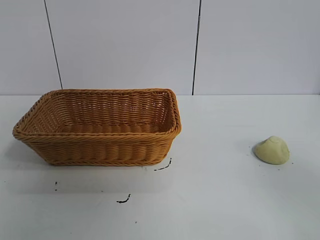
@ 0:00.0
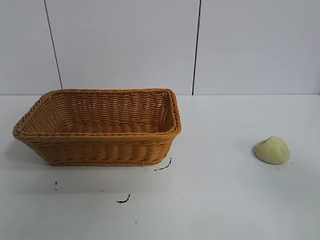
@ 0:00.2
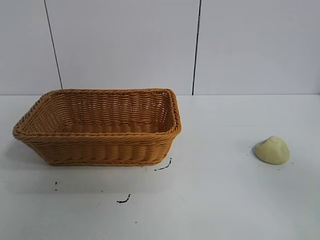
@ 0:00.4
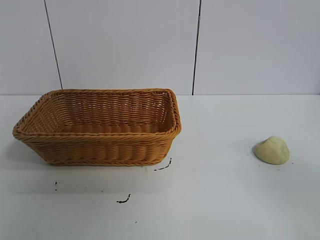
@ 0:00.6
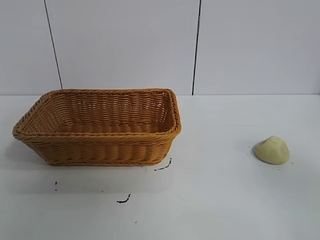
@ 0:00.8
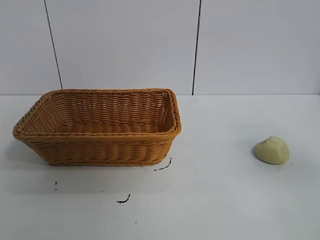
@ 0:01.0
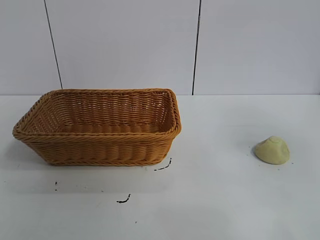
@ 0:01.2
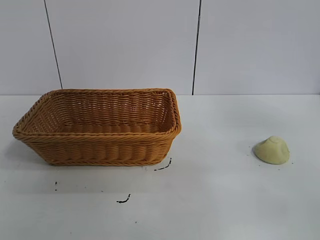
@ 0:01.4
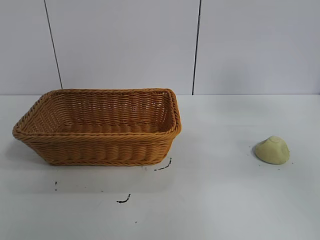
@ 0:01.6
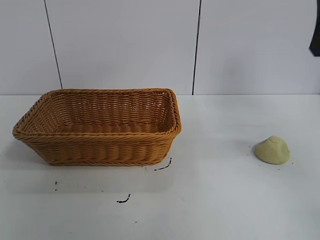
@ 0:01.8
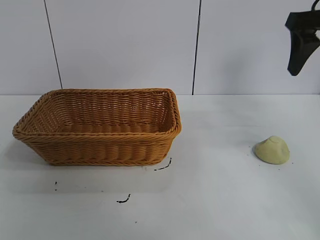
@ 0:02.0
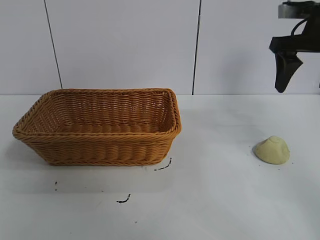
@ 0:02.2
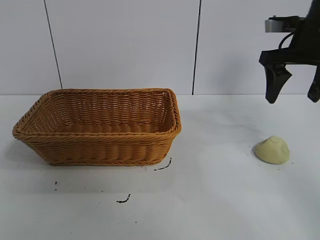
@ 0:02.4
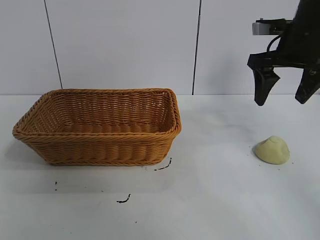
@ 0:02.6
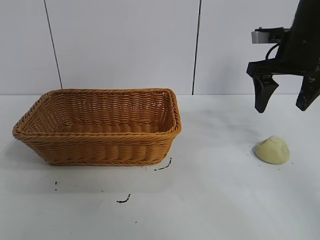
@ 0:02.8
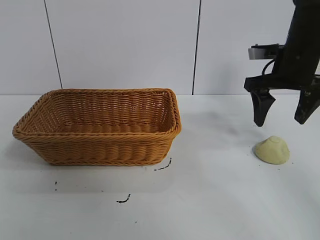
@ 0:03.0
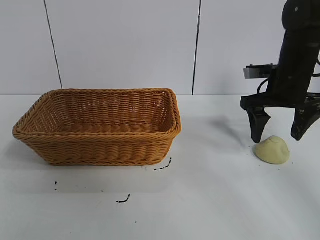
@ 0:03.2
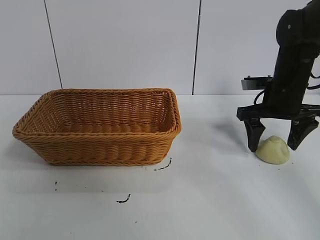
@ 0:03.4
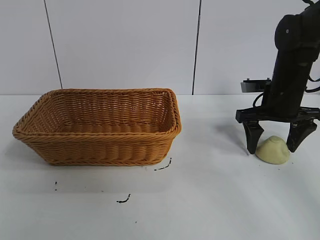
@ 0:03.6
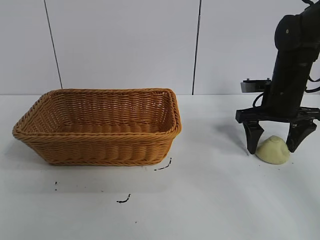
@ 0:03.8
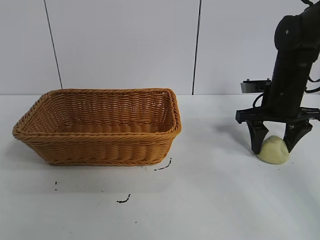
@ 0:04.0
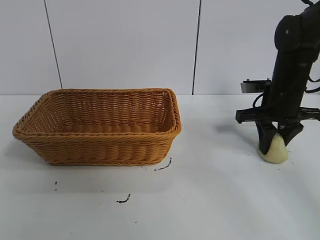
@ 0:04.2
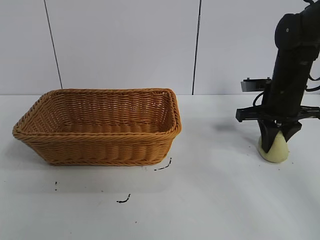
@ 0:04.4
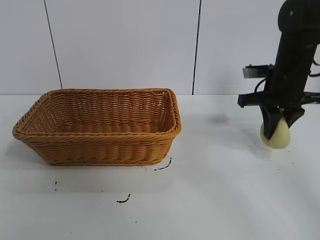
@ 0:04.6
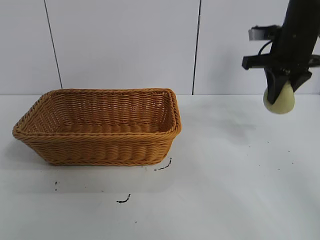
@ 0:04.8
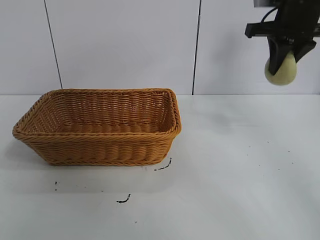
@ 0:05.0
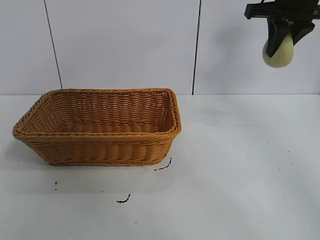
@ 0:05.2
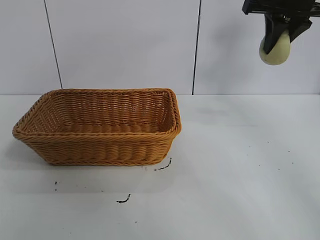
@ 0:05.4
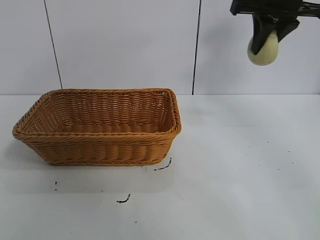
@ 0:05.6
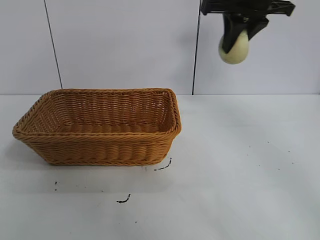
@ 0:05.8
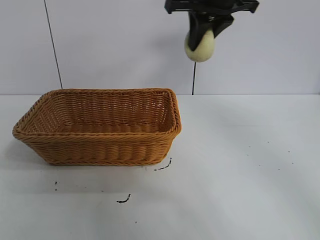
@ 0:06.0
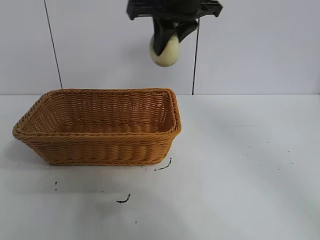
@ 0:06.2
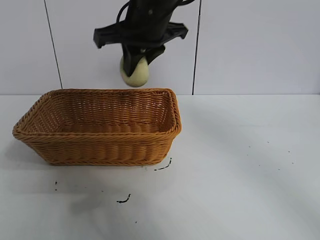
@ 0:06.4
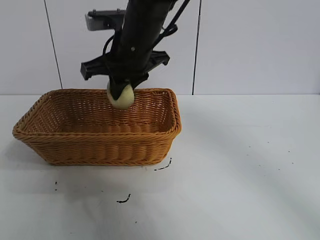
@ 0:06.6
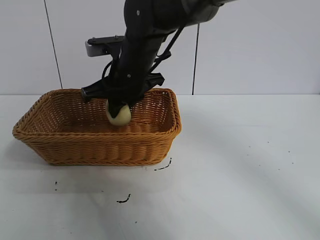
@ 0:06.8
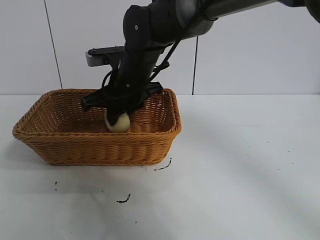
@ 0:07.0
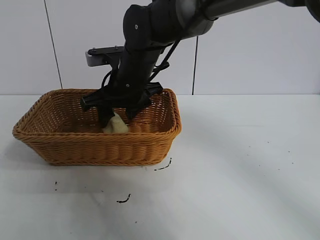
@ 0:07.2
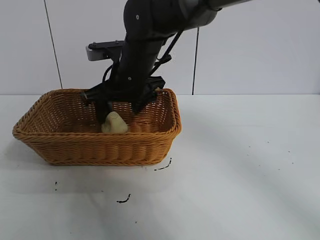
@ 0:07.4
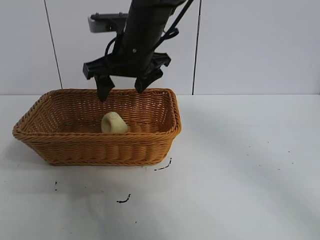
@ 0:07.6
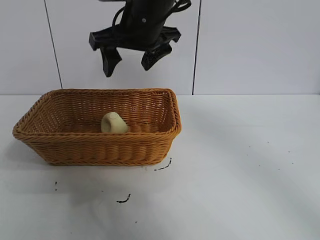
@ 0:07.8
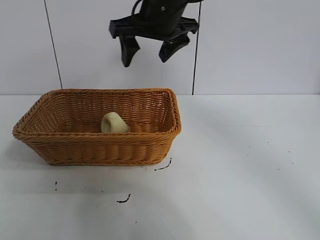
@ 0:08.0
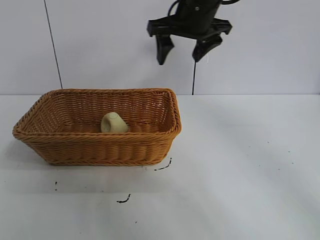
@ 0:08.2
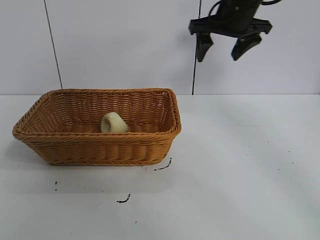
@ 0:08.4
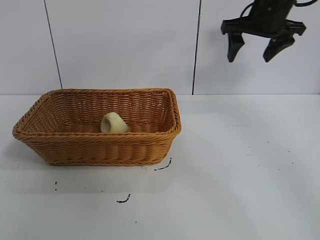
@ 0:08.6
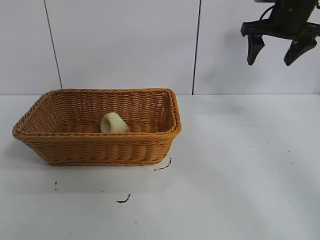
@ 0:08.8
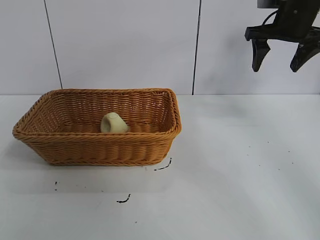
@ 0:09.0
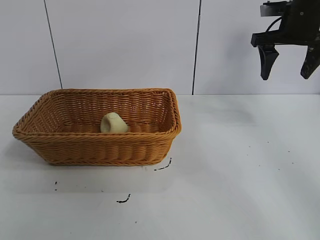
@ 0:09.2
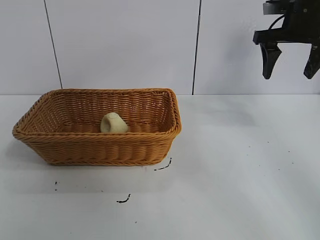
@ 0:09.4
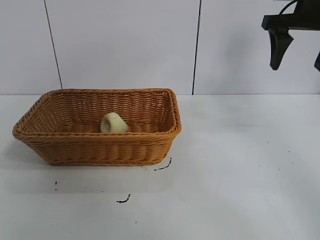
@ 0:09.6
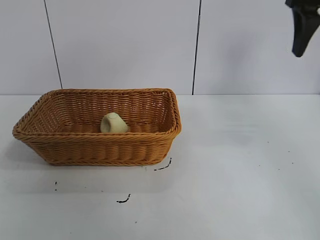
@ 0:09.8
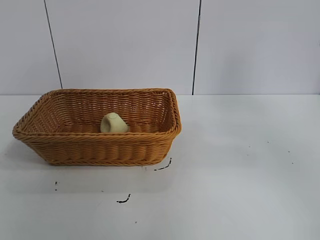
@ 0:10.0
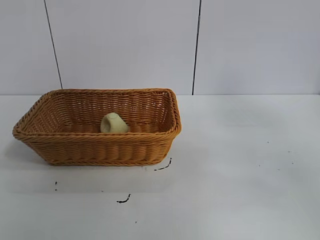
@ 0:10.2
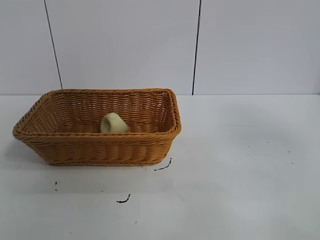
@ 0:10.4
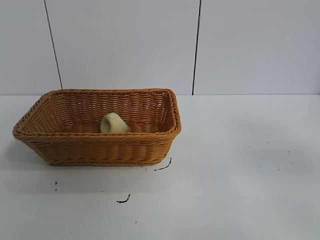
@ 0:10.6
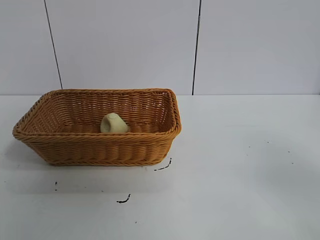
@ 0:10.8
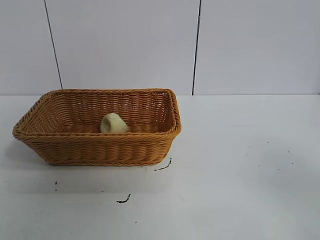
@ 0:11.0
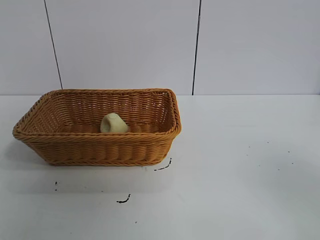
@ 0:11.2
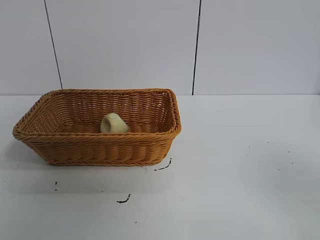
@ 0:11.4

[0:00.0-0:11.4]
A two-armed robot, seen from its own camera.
Task of the whole recording: pick up the egg yolk pastry and put it into the basket.
Step, 0:00.8 to 0:04.4: Grasp egg yolk pastry with right gripper.
Step, 0:04.6 to 0:07.4: Place the egg yolk pastry in the basket with right gripper.

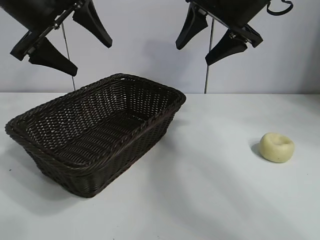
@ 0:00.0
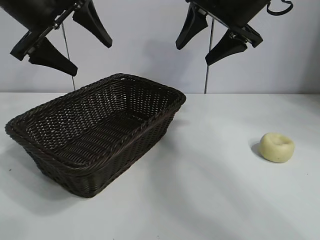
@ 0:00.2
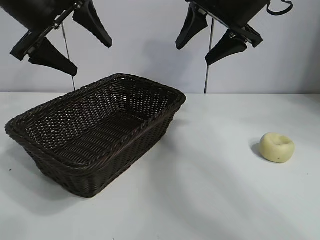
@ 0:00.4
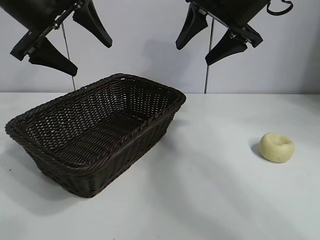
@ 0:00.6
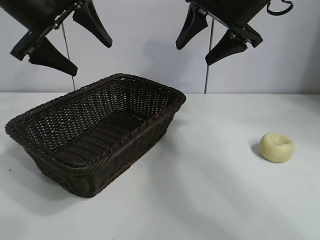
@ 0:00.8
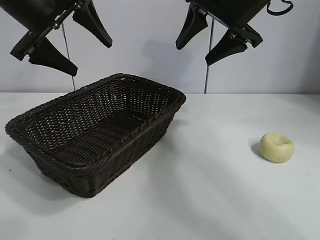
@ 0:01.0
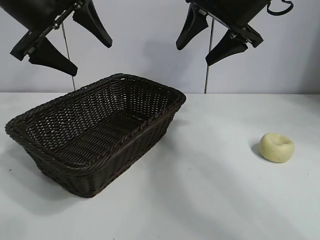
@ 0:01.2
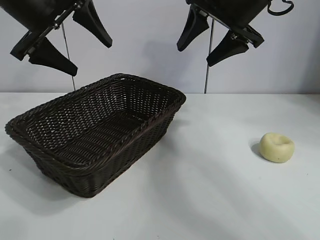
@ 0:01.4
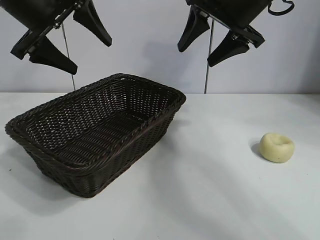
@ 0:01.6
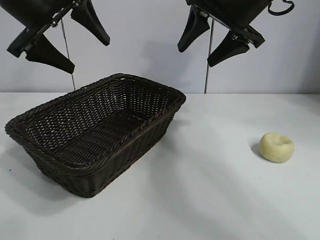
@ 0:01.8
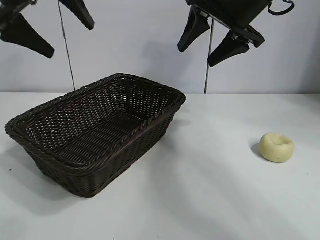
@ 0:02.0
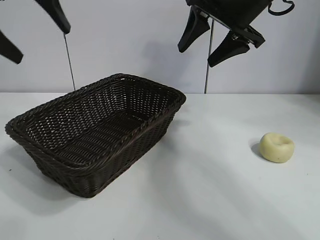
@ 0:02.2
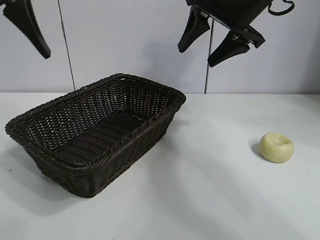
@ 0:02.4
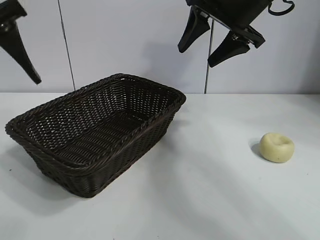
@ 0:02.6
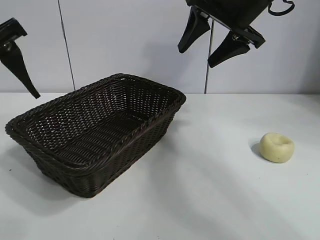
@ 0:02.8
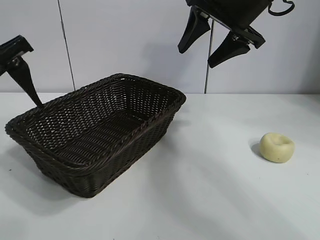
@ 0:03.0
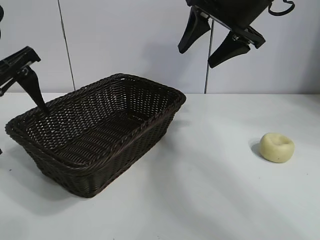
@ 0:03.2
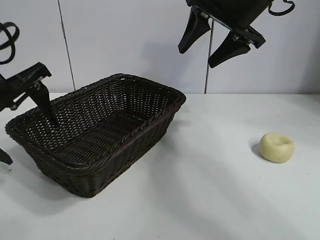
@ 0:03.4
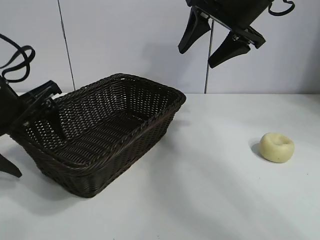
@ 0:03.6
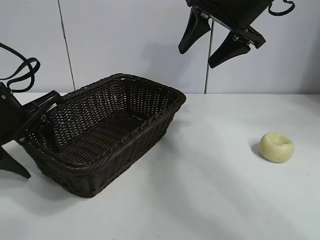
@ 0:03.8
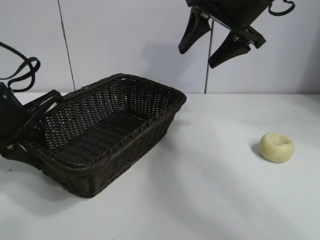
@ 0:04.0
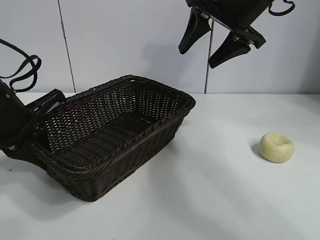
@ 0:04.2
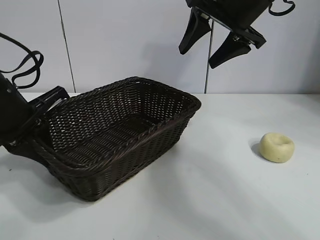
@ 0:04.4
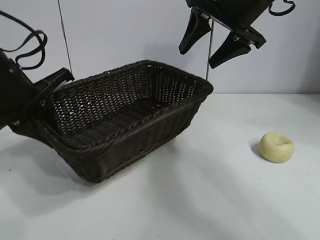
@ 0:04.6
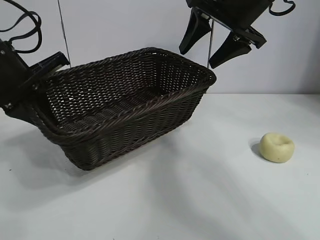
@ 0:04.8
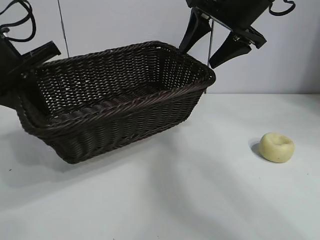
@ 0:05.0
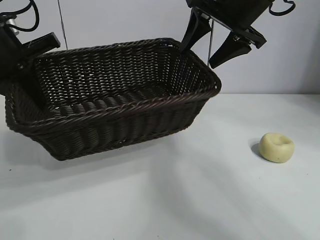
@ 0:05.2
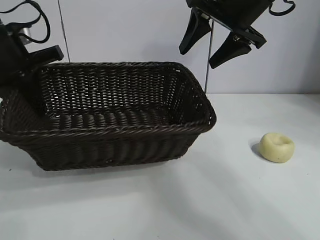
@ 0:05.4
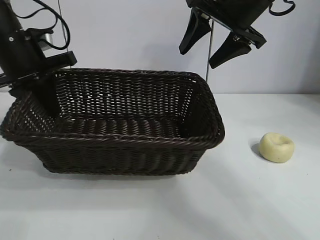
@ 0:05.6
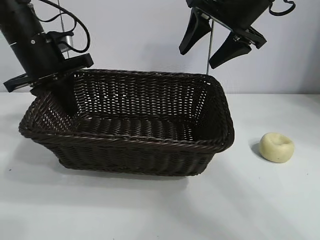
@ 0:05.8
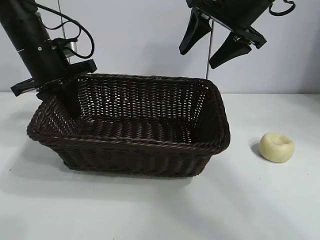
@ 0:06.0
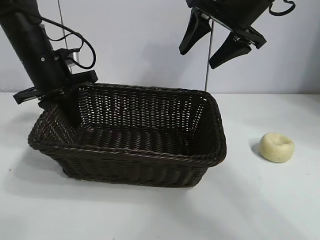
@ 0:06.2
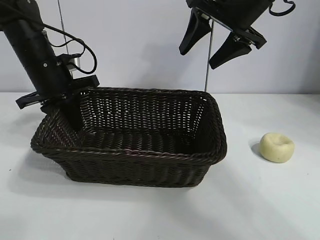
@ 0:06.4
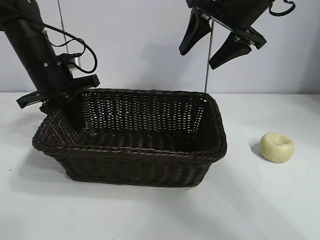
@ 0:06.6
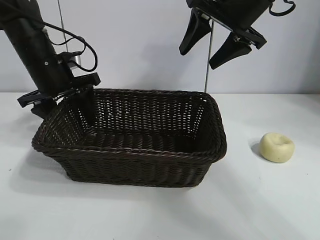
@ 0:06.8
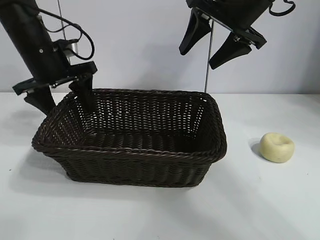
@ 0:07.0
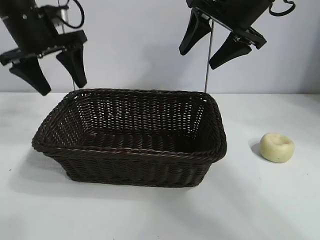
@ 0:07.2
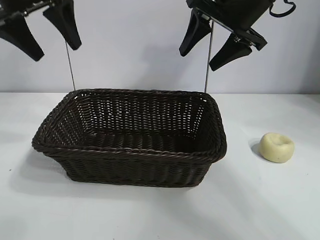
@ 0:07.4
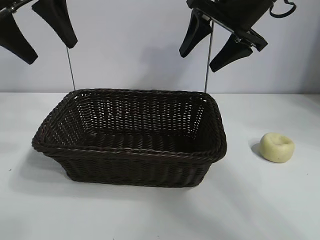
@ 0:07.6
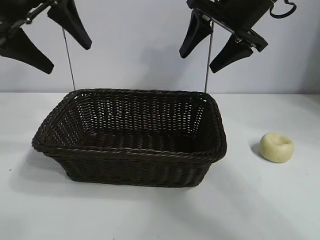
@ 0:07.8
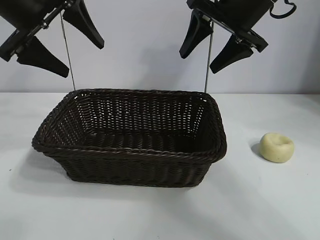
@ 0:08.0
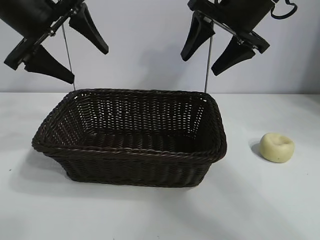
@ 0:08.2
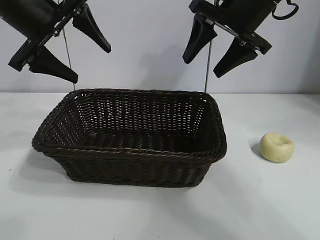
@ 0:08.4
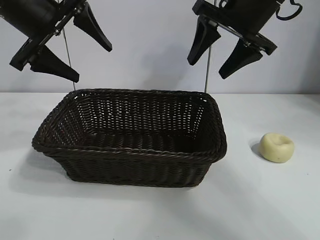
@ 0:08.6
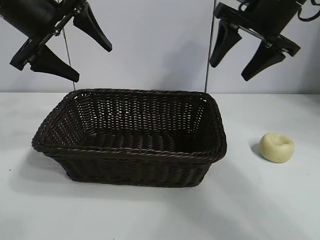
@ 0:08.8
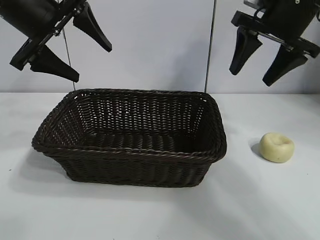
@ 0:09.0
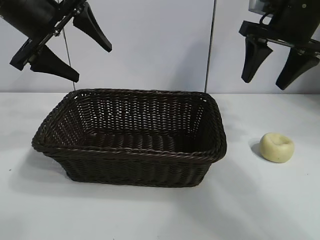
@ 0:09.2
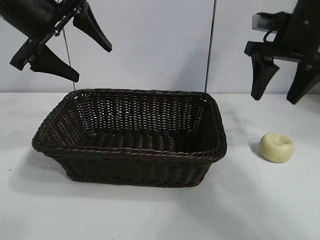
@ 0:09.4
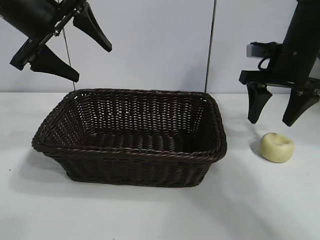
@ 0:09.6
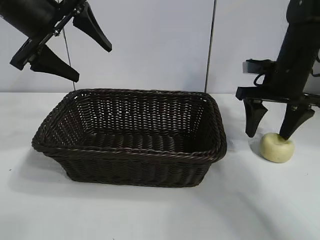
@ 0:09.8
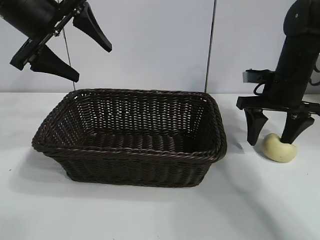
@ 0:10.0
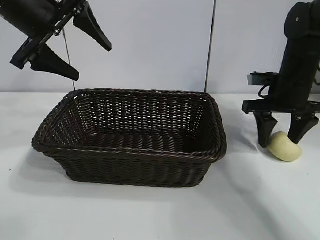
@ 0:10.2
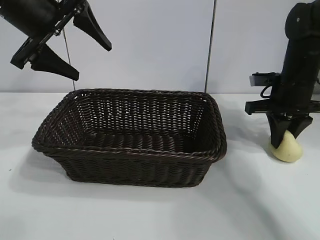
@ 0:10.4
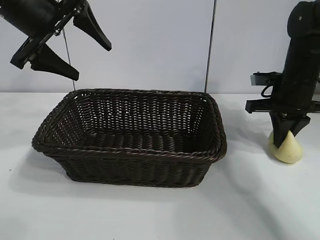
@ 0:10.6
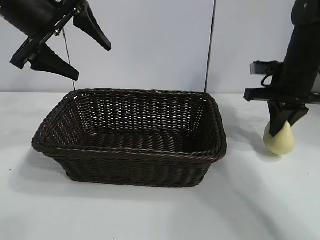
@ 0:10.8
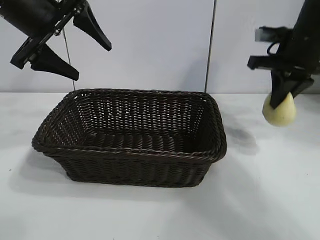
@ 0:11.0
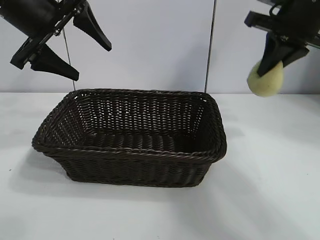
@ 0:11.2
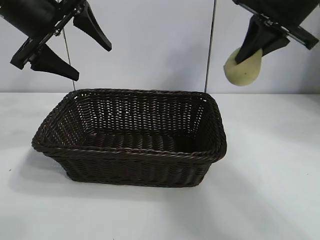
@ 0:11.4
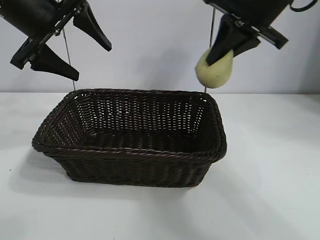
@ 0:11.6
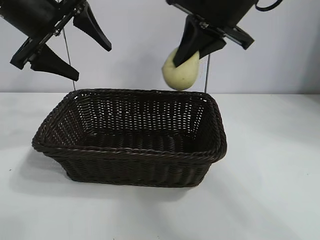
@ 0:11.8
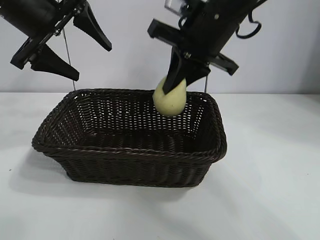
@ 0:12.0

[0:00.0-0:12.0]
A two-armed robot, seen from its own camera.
Task of the whole recording: pick up the egg yolk pastry and put it into the basket.
Step, 0:01.2 to 0:04.0: Grasp the basket with left gripper.
Step, 0:04.2 to 0:06.8: Place the basket in the center of view with left gripper.
Step, 0:07.2 to 0:10.4: Grasp egg yolk pastry with right gripper.
